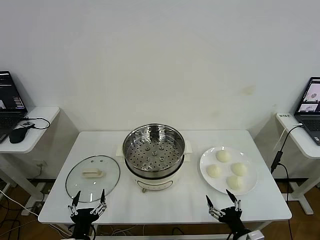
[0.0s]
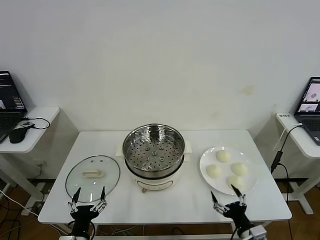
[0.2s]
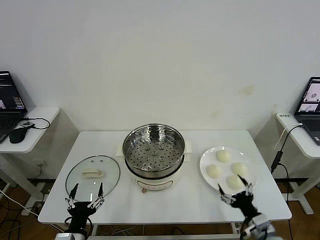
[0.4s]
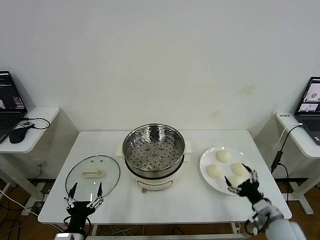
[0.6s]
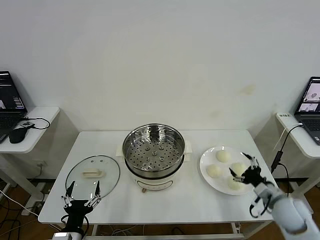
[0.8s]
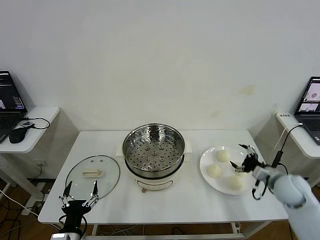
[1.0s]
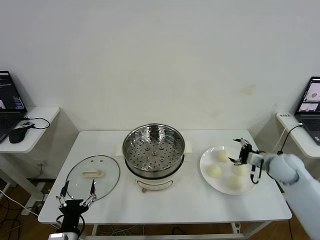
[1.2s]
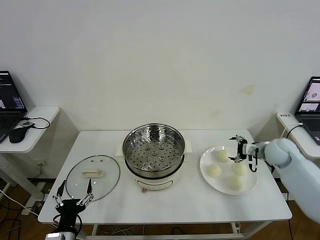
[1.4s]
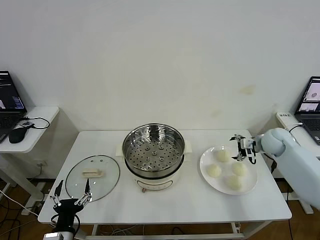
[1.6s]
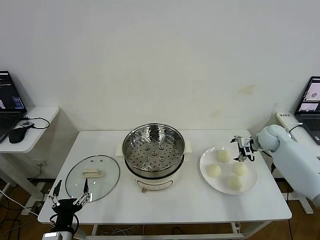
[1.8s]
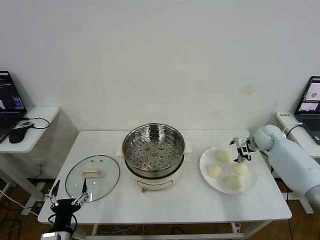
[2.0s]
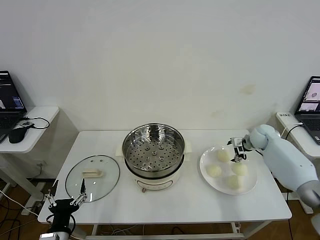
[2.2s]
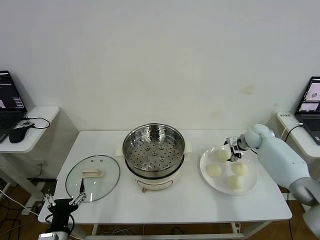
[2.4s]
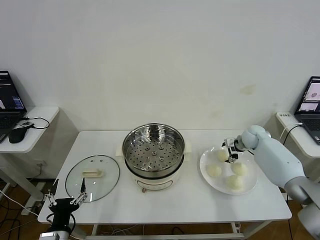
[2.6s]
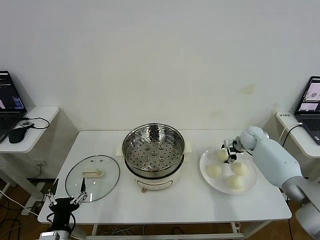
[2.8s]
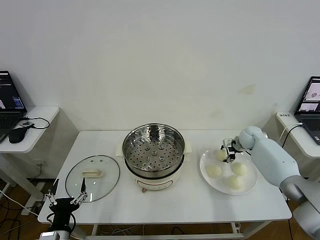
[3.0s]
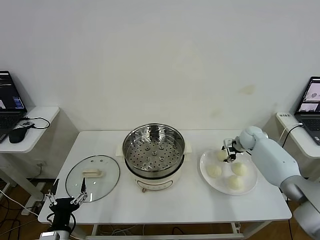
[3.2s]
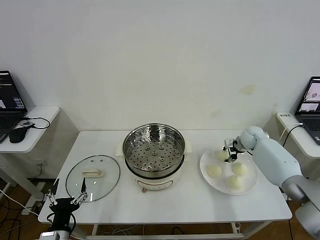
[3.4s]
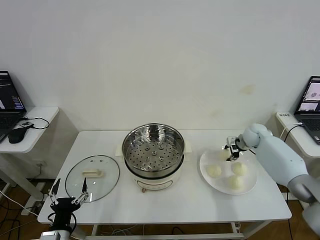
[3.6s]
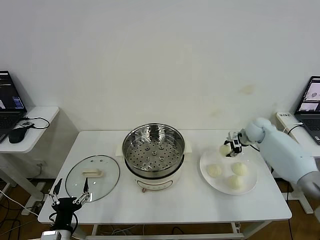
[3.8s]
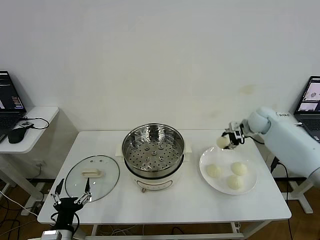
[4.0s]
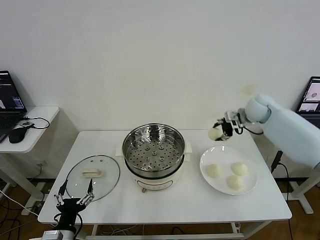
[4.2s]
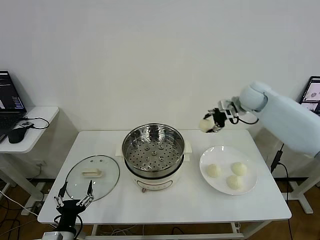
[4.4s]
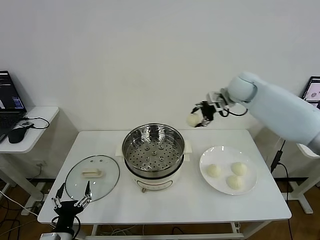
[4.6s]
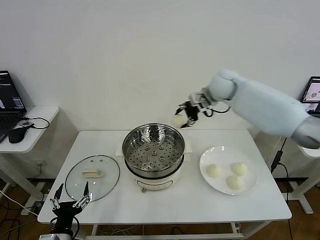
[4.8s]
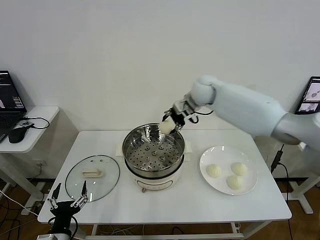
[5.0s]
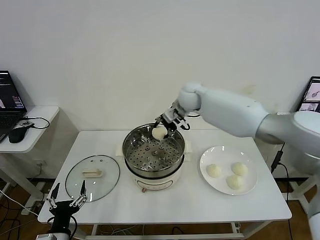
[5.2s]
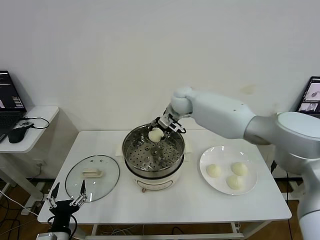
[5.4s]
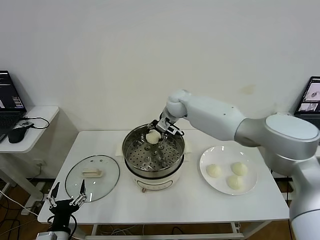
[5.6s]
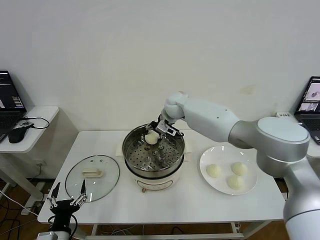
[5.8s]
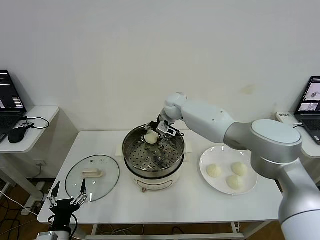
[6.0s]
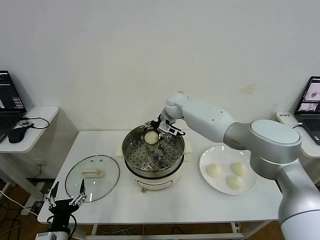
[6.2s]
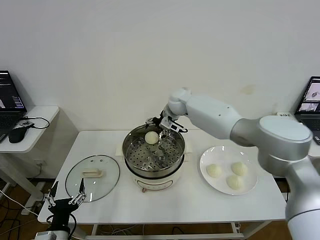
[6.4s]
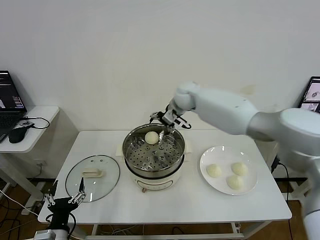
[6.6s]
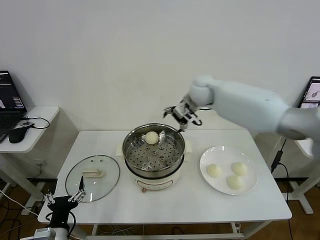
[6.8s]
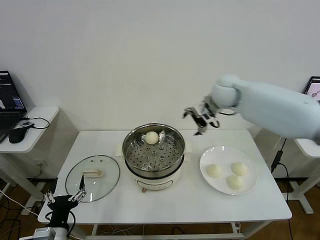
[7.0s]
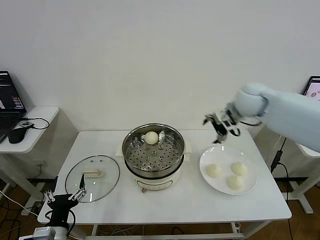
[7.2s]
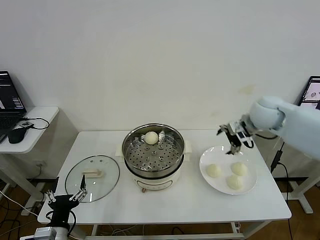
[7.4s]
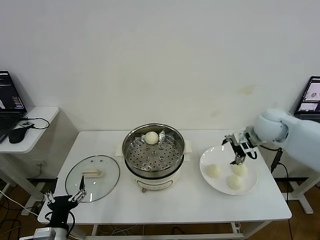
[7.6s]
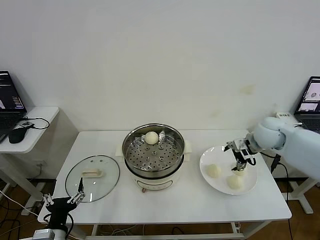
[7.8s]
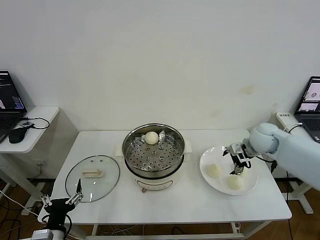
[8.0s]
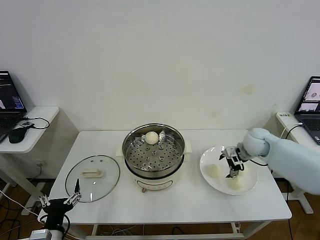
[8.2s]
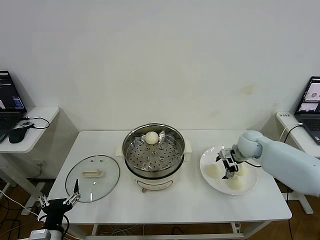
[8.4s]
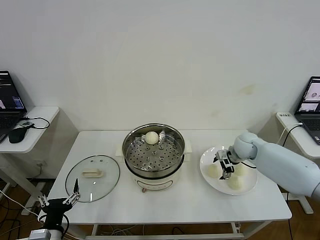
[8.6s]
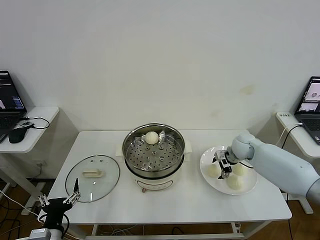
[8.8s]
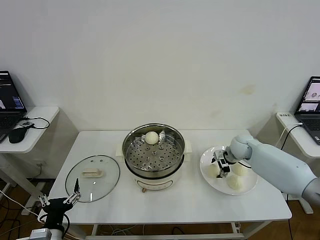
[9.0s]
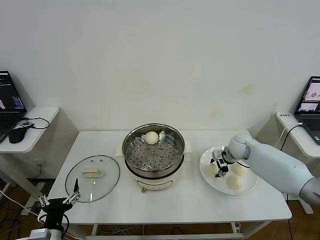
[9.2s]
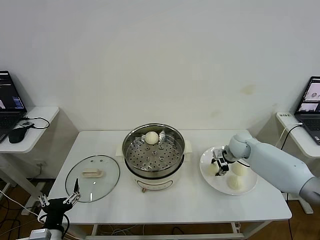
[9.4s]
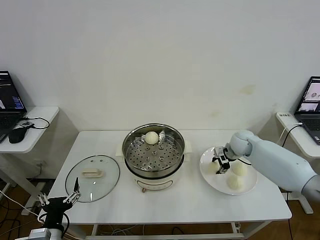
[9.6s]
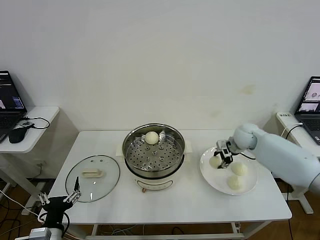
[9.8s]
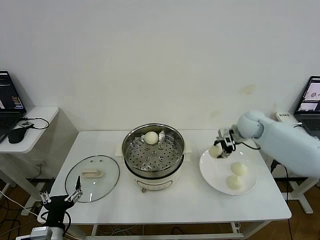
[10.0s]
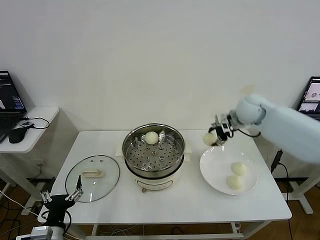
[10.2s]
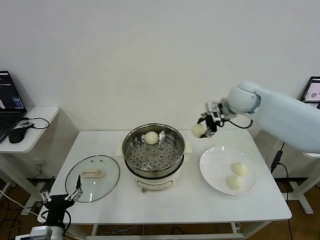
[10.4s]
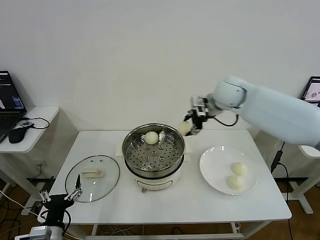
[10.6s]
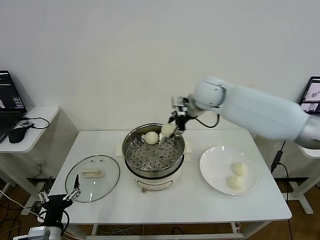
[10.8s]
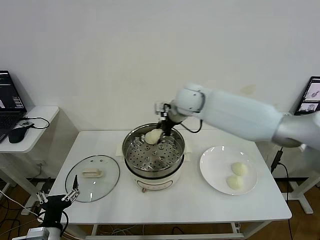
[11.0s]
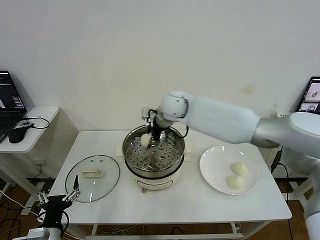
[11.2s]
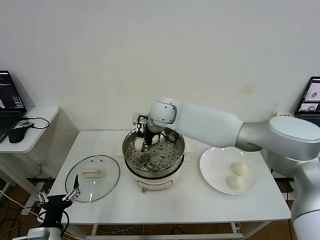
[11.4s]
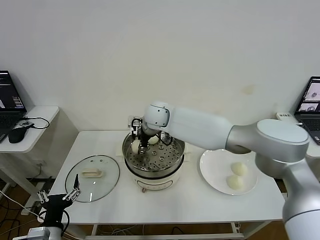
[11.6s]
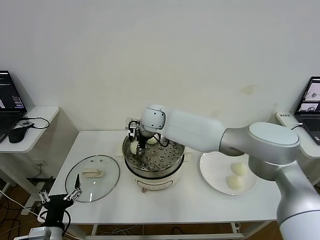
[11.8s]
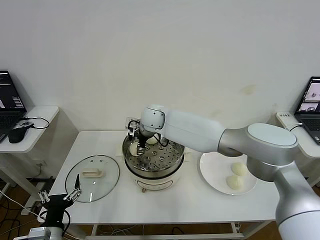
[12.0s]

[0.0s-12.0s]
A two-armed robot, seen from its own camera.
Step, 0.0s to 3.2s: Grasp the baozi in the plate with right gripper.
Step, 3.4s to 6.2s: Place the baozi on the steamer with right gripper.
Step, 6.4s to 9.4s: Grasp the baozi in the plate with right gripper.
1.6s to 3.0s: The right gripper heads downward and forward, covering about 10 cm, and closes up.
3.0s to 4.4s: The right gripper travels upward and to the left by approximately 25 cm.
4.4s to 6.0s: The right gripper is displaced to the left and downward by roughly 25 cm, and opens up.
6.0s to 7.6s: The right gripper heads to the right and backward, covering approximately 35 cm.
7.6s to 9.0s: The right gripper goes some 15 cm downward, and closes.
9.0s to 10.4s: The right gripper heads upward, covering some 25 cm, and closes up.
10.4s to 12.0s: The right gripper travels to the left by some 25 cm, and opens up.

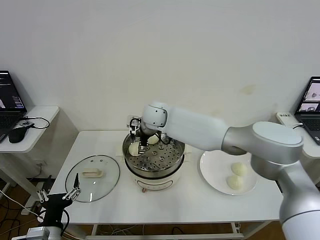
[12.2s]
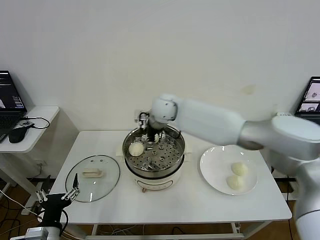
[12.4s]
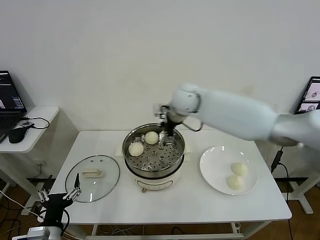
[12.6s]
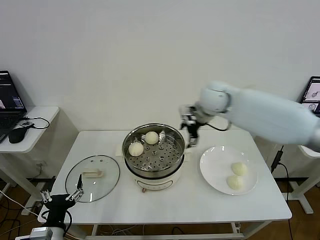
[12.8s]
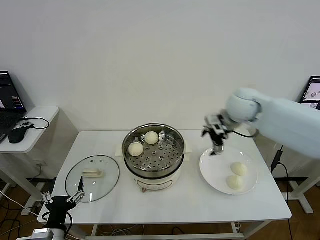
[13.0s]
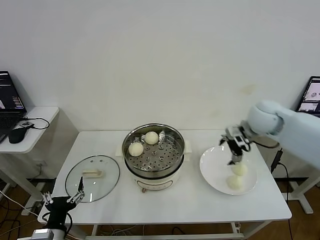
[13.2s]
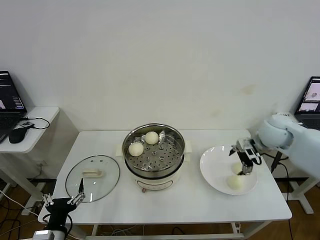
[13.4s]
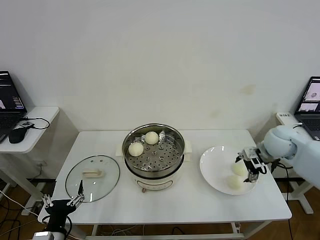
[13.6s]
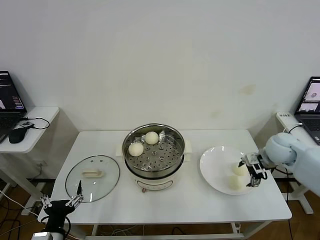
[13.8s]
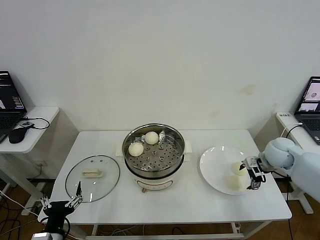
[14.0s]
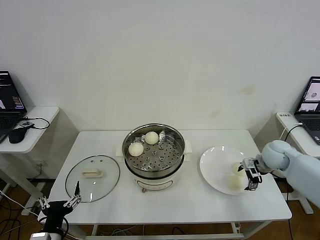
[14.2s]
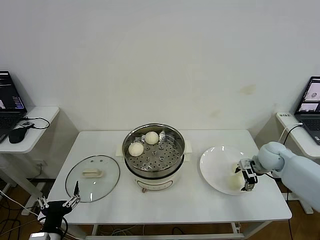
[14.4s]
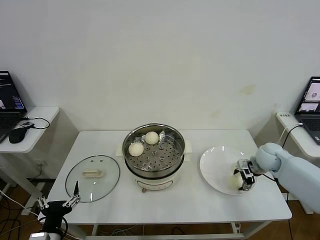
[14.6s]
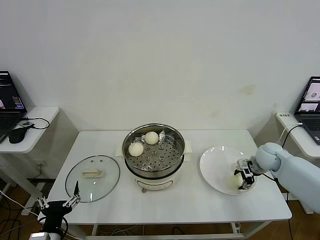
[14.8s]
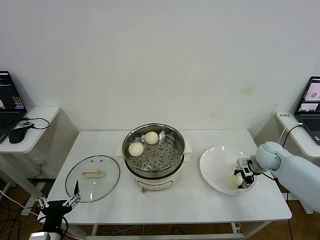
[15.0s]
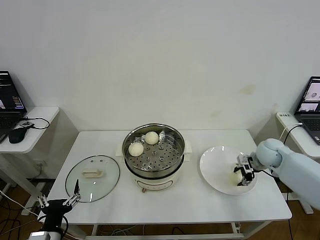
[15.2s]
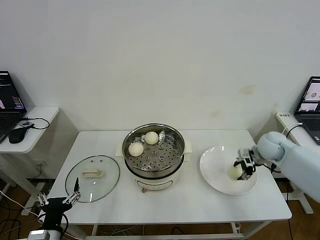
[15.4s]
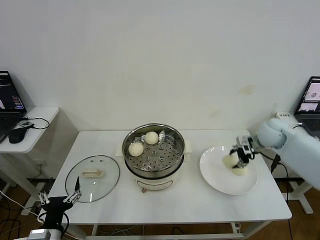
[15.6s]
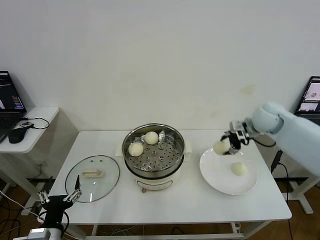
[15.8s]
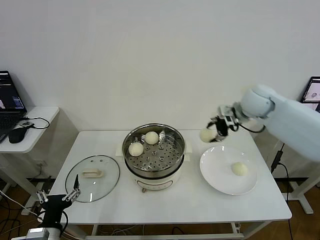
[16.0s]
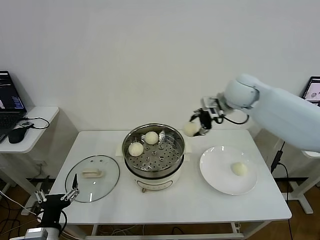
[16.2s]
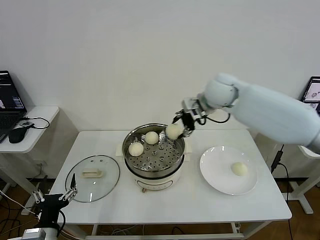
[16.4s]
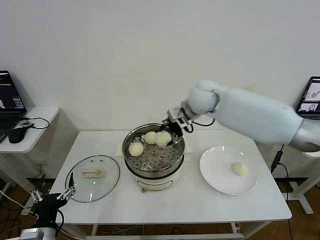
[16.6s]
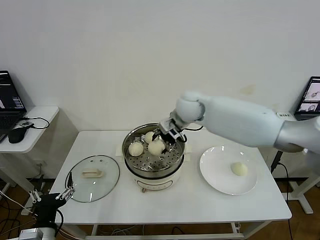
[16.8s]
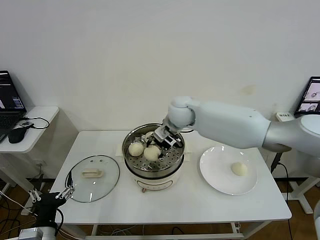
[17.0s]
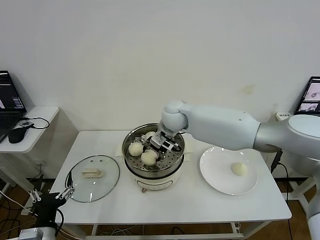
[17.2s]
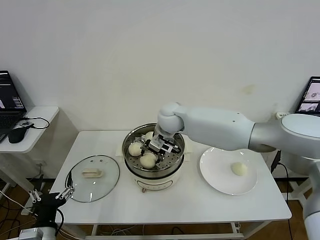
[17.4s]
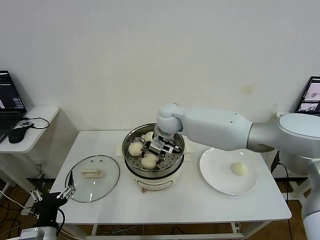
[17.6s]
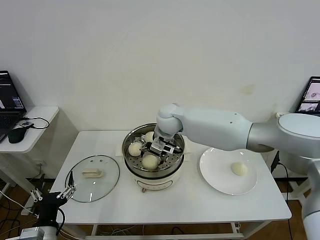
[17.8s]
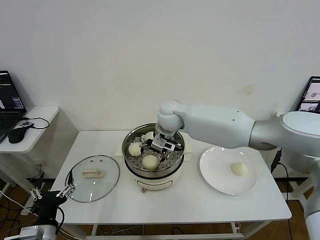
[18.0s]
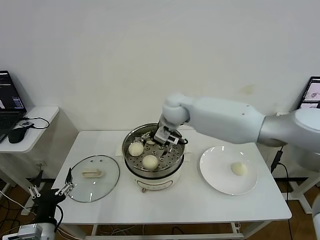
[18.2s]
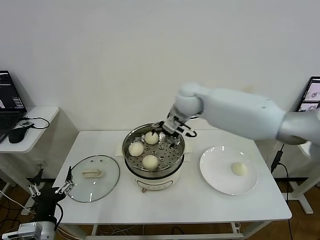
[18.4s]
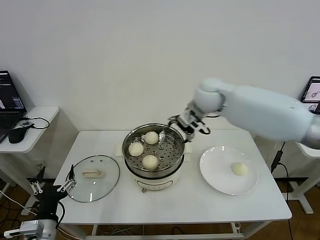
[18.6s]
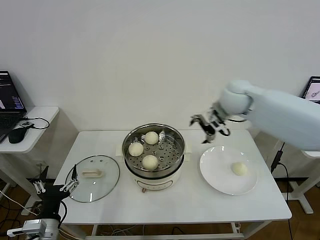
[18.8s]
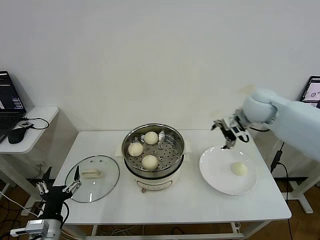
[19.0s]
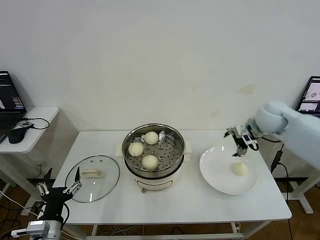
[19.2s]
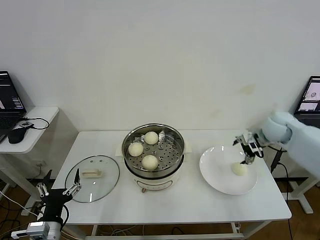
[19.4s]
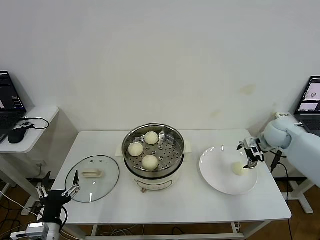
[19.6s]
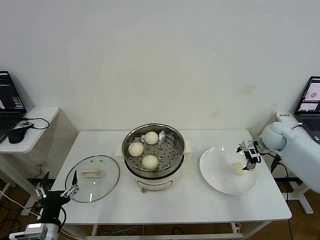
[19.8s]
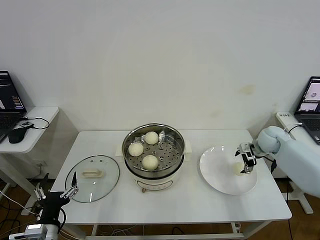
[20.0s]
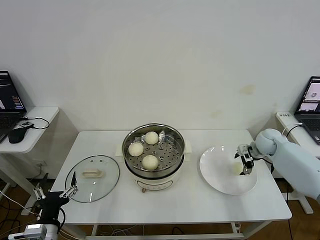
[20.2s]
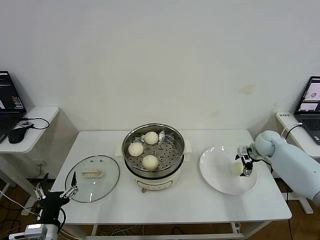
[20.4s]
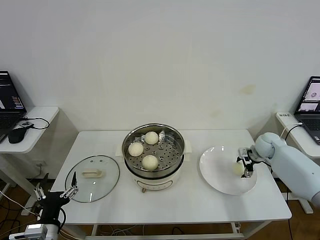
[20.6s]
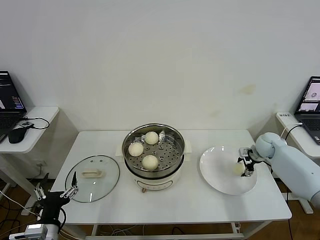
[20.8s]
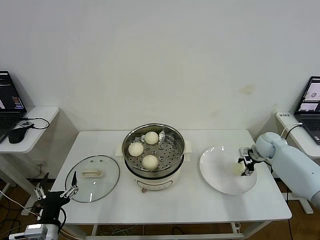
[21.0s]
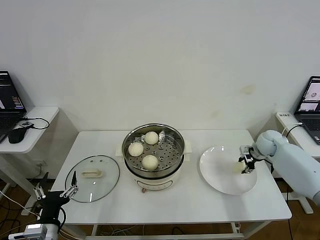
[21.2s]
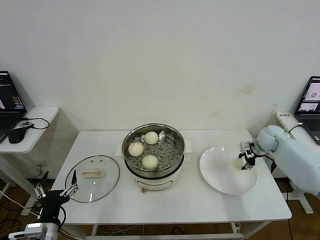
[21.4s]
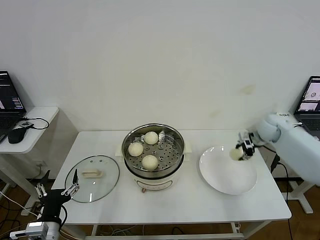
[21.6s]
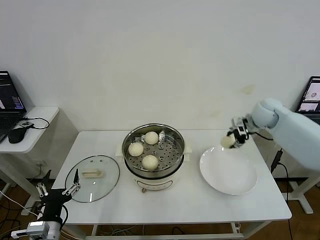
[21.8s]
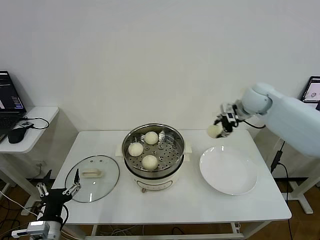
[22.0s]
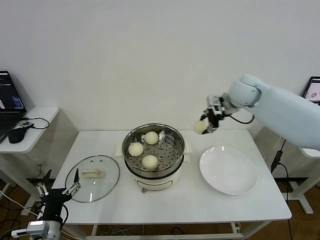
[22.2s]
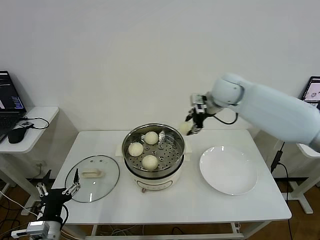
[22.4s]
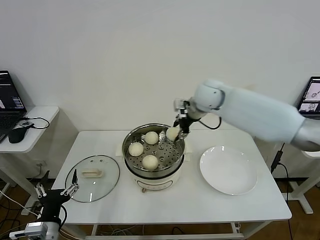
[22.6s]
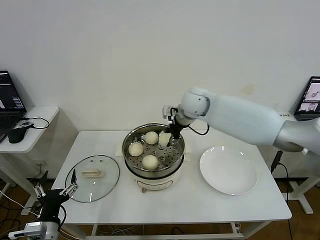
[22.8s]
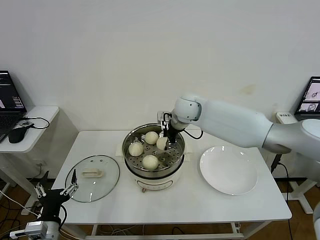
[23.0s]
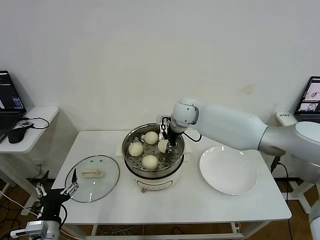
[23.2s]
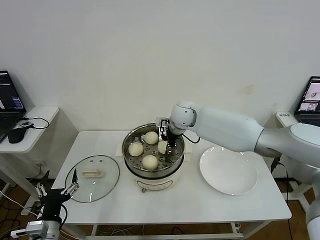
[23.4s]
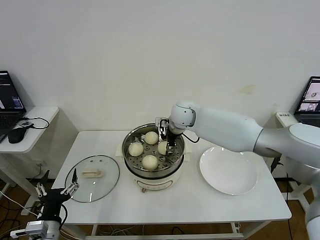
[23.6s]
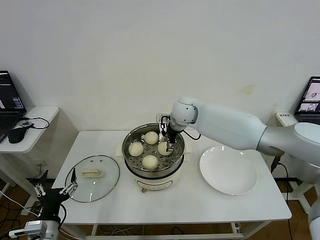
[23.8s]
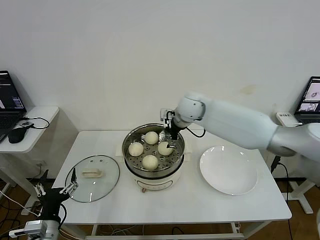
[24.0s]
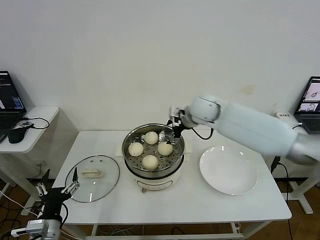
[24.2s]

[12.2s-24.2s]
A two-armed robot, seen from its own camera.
Step, 12.2s to 15.0s: Grasp the baozi in the plate with right gripper.
Step, 15.2s to 17.8s: Place the baozi on the steamer with right gripper.
Step, 18.0s to 21.0s: Grasp the baozi in the plate with right gripper.
Step, 21.4s to 23.8s: Place the baozi on the steamer with right gripper.
12.2s to 13.8s: The right gripper heads to the right, covering about 40 cm.
13.8s to 15.2s: The right gripper changes place by about 5 cm, and closes its fingers.
15.2s to 16.6s: The right gripper goes roughly 35 cm to the left and upward.
16.6s to 18.2s: The right gripper is displaced to the left by about 5 cm, and opens up.
18.2s to 19.8s: The right gripper shifts about 35 cm to the right.
19.8s to 21.2s: The right gripper heads downward, covering approximately 5 cm, and closes its fingers.
21.2s to 22.6s: The right gripper goes about 35 cm to the left and upward.
22.6s to 24.2s: The right gripper opens.
